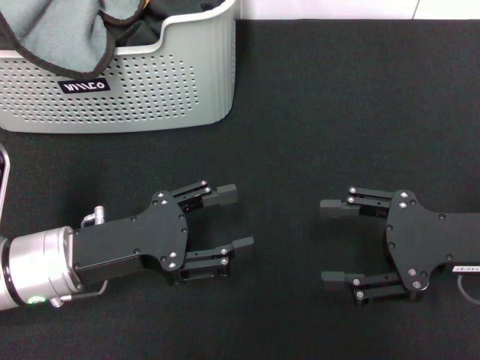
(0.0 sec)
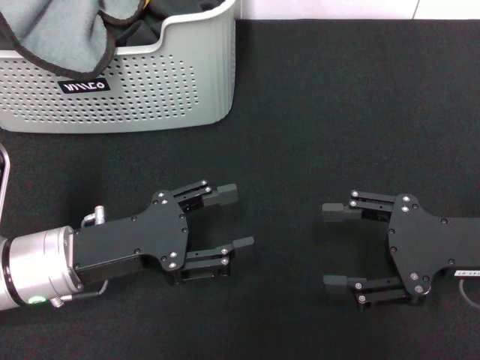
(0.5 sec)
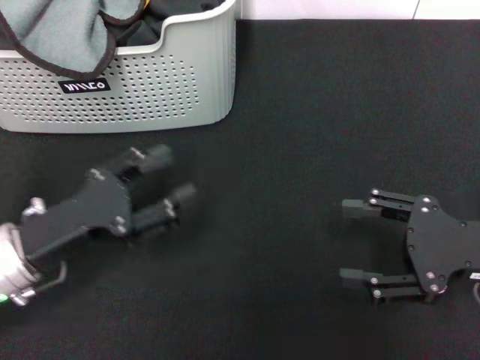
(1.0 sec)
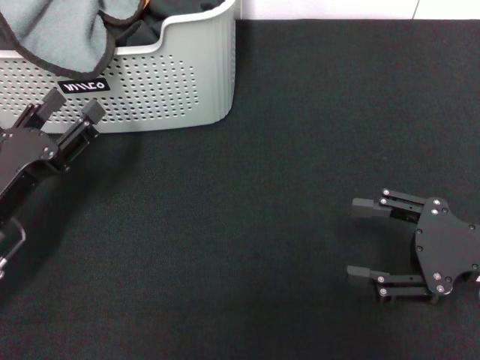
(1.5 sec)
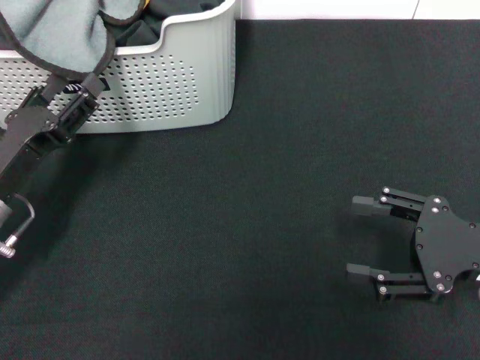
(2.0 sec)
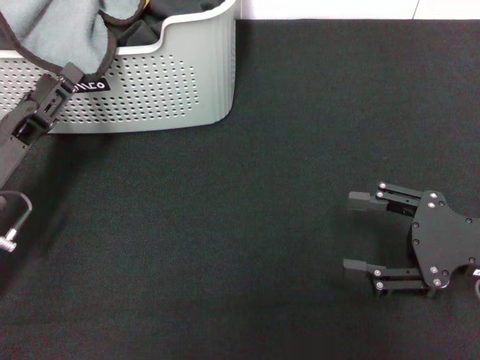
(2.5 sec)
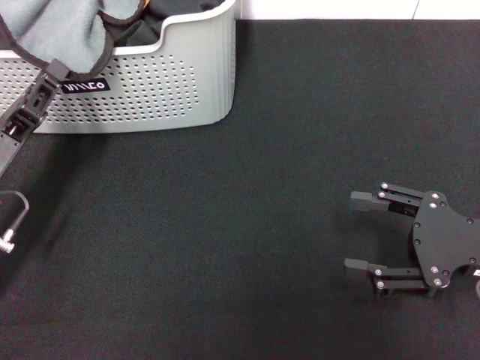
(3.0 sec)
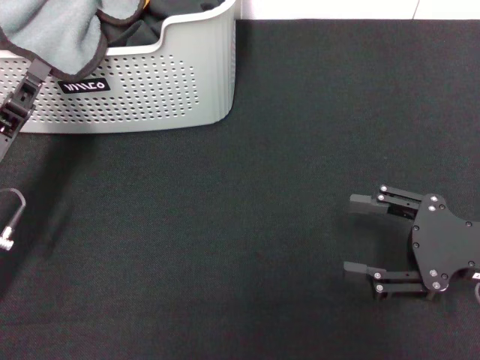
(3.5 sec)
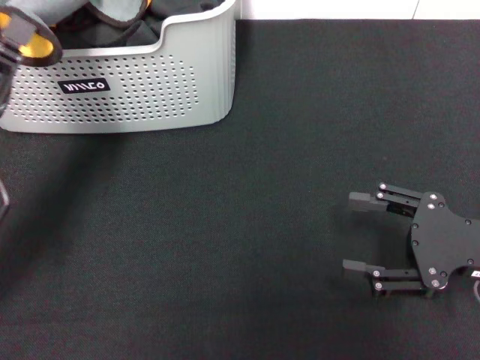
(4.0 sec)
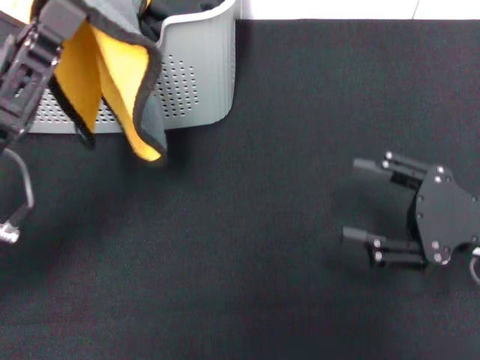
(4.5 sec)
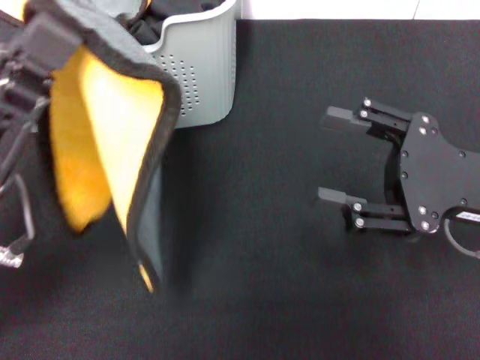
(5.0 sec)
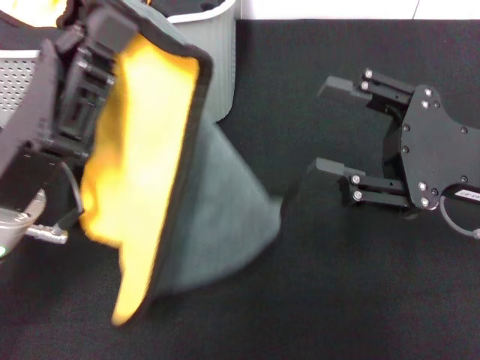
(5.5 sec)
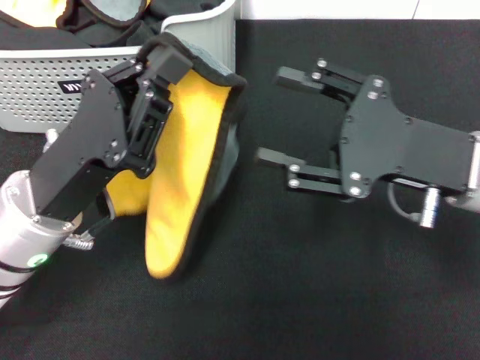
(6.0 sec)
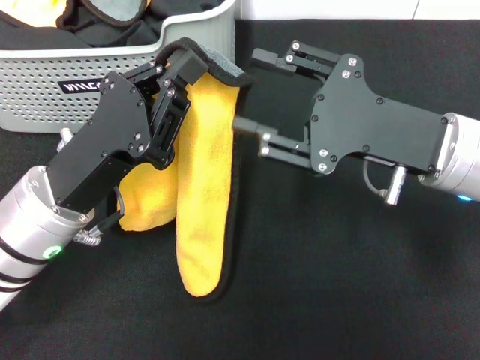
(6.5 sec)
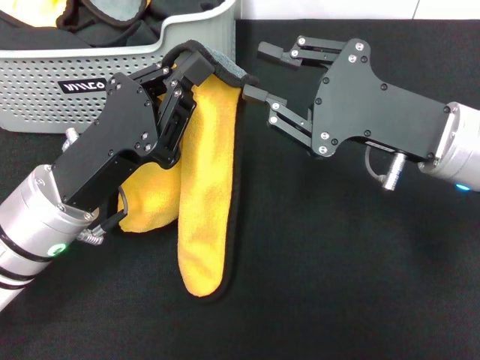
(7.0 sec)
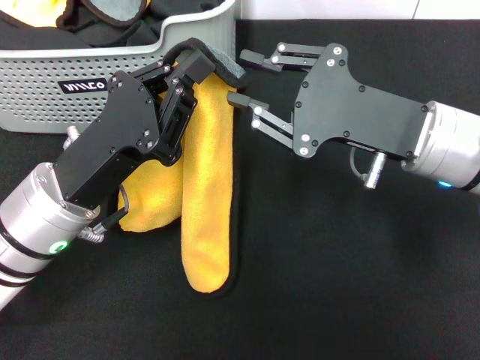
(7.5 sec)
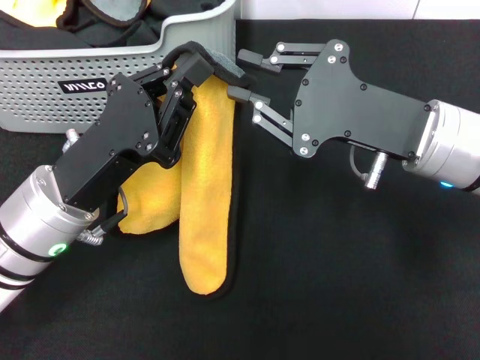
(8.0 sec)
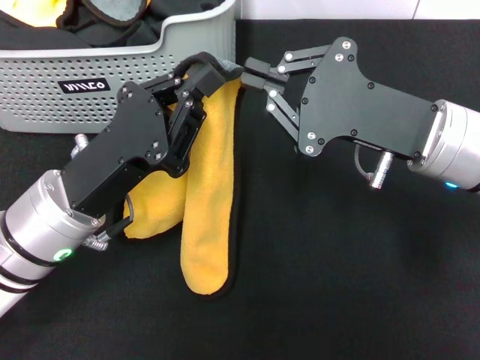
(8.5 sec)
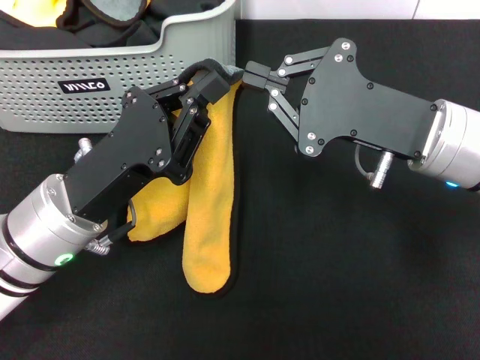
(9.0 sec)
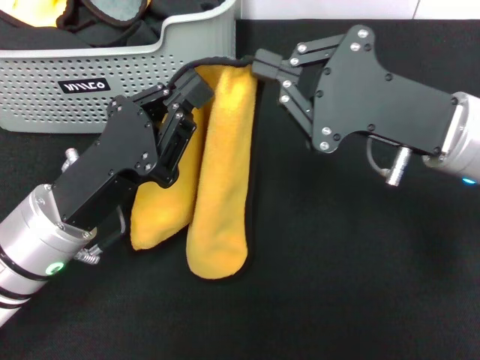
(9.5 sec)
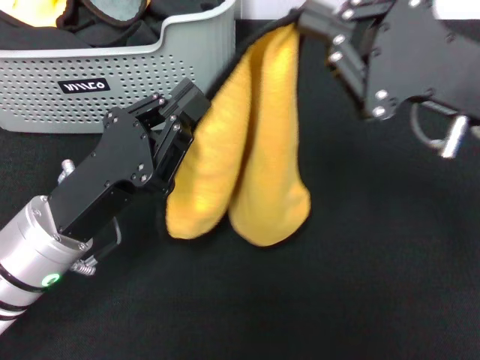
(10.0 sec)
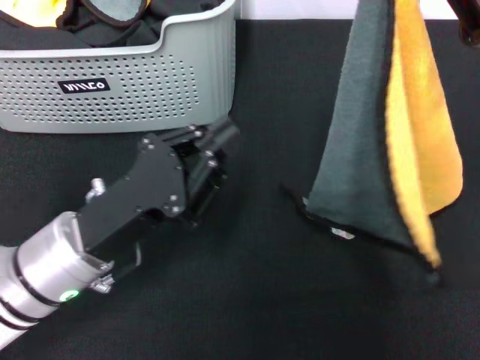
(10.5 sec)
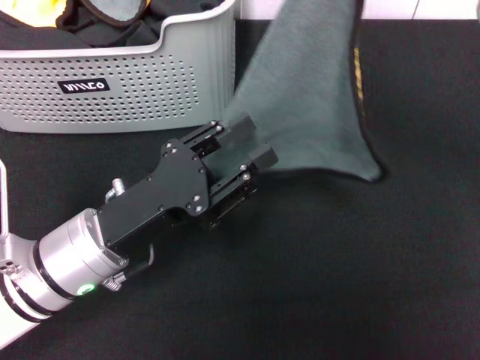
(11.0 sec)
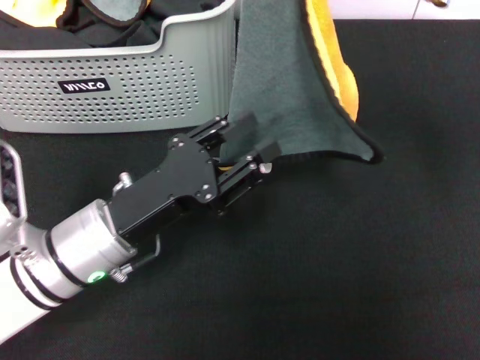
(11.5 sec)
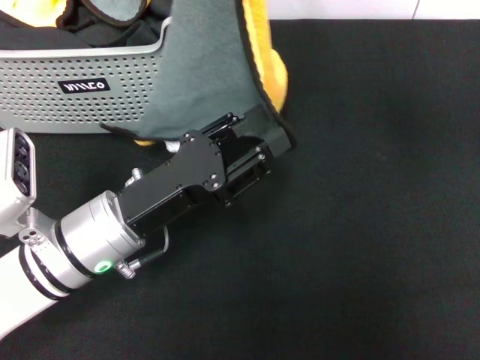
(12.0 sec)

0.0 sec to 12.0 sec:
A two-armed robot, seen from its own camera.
Task of the whole recording: pick up the towel from the storage box and lay it flat on the black tablecloth.
Step, 0.0 sec to 3.0 sec: Pick up a towel with the left gripper.
Step, 3.5 sec to 8.5 sec: Spread the towel flat with the left gripper.
0.0 sec to 2.0 sec: The left gripper shifts roughly 5 cm to the left.
2.0 sec to 4.0 sec: The left gripper closes its fingers.
4.0 sec to 6.0 sec: The left gripper goes roughly 10 cm to the right, while the right gripper shifts about 10 cm to the left.
6.0 sec to 8.0 sec: The right gripper closes.
8.0 sec to 10.0 sec: The right gripper ends up approximately 5 cm from where it was.
10.0 sec to 12.0 sec: The left gripper opens its fingers. Meanwhile the right gripper heads upward and forward, covering approximately 10 cm.

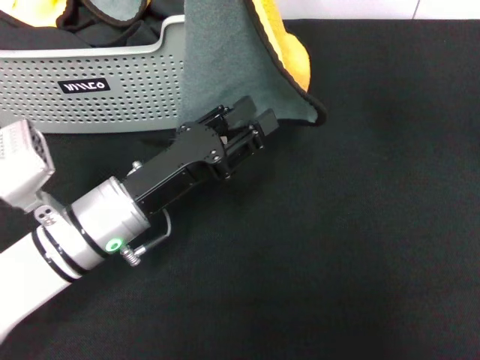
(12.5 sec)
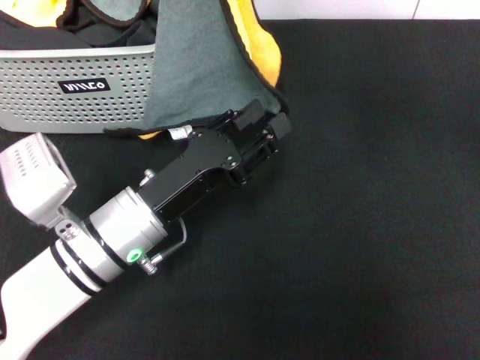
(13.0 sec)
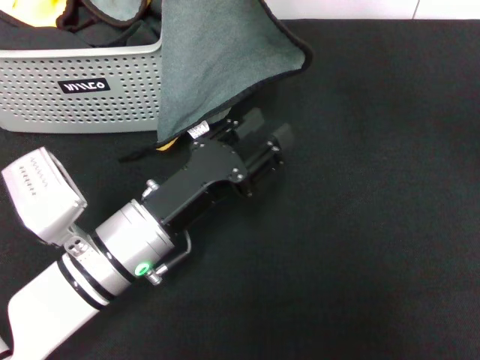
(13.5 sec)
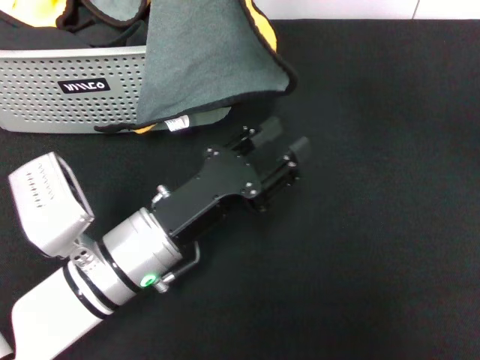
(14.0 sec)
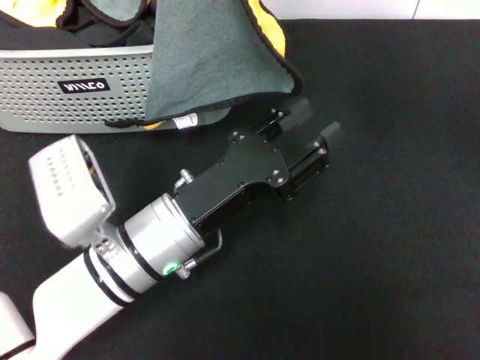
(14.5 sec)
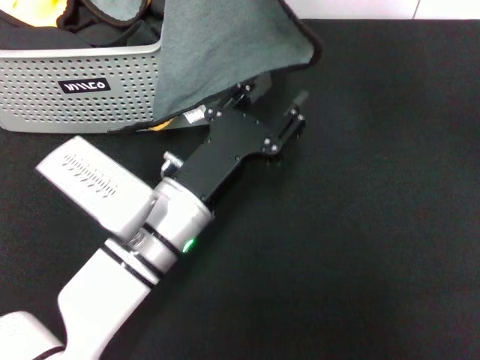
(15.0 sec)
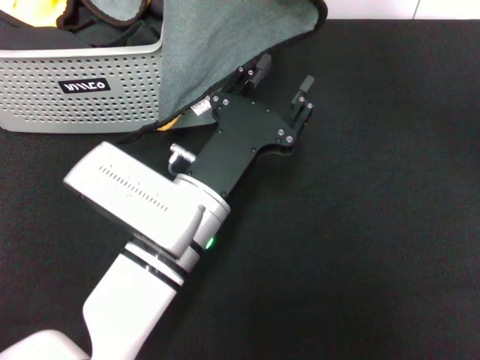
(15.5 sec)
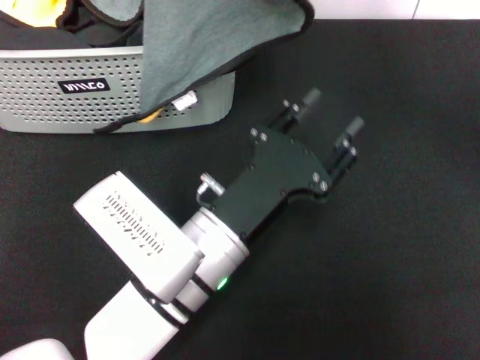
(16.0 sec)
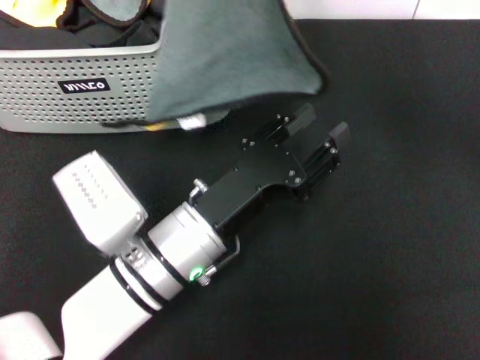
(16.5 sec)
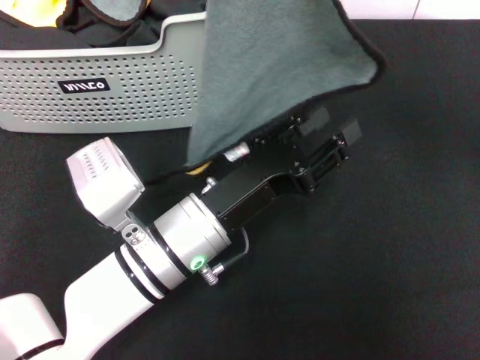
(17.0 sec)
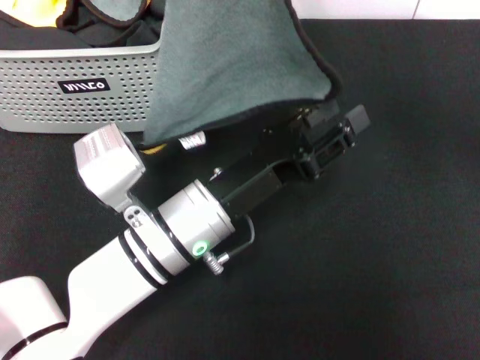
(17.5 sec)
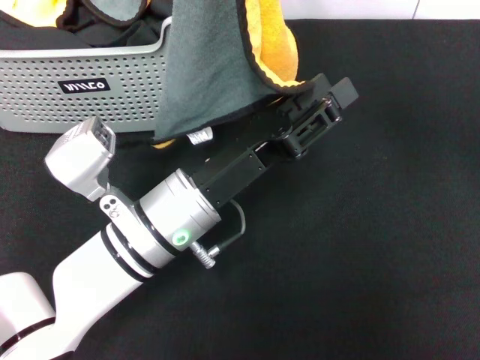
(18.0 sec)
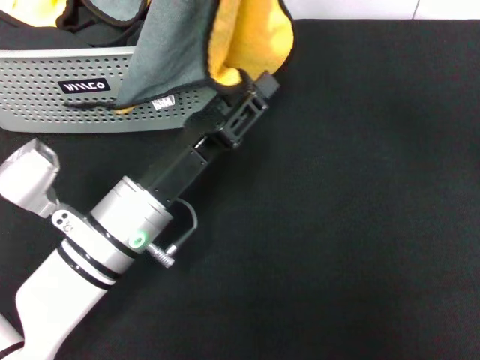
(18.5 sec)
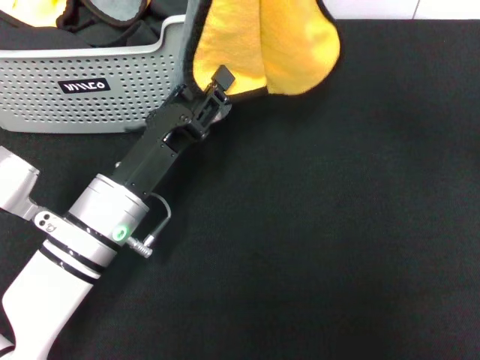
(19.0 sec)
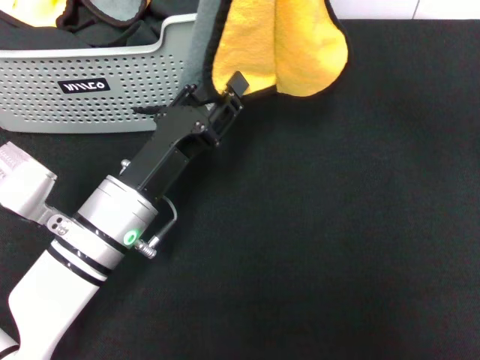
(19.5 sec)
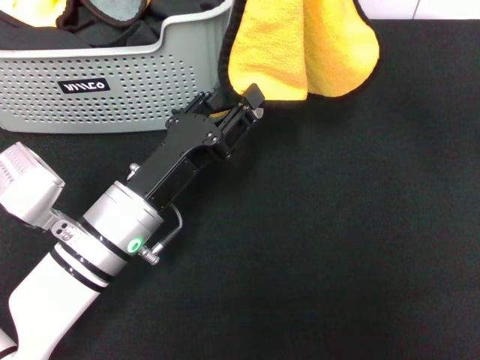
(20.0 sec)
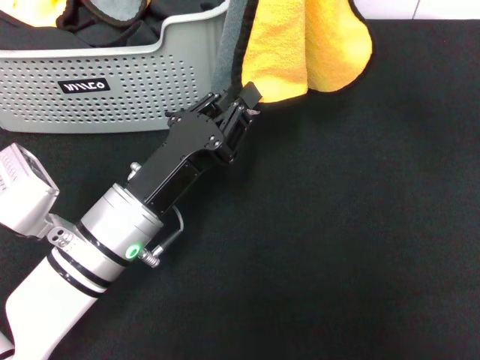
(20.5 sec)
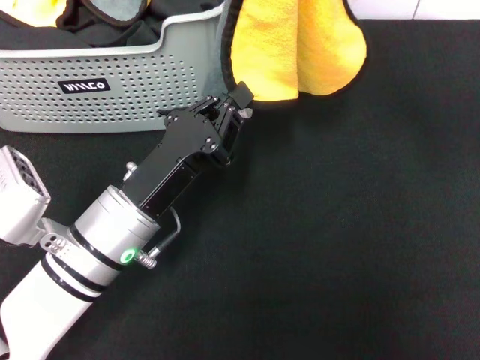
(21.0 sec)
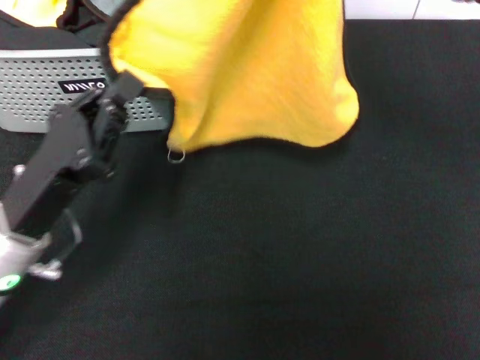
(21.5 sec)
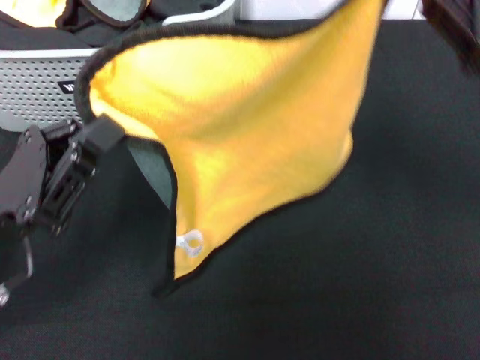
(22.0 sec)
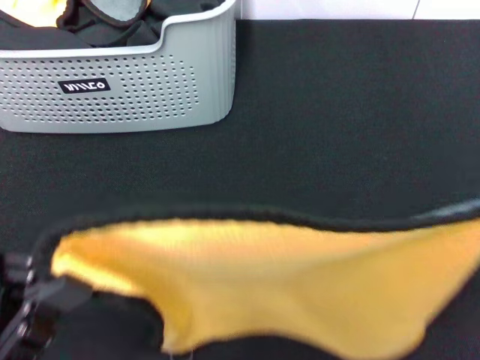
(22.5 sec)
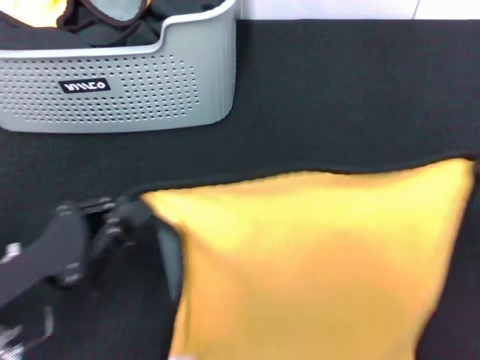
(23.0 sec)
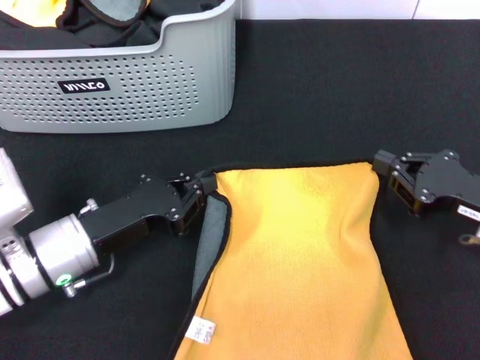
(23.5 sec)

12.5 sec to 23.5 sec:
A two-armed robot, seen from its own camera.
Task of the whole recording: pick up the towel from the storage box and lay it flat on the black tablecloth.
12.5 sec to 14.5 sec: The left gripper goes some 5 cm to the right.
16.0 sec to 18.0 sec: The right gripper shifts by roughly 5 cm.
18.0 sec to 20.0 sec: The left gripper ends up about 5 cm from where it was.
20.0 sec to 21.5 sec: The left gripper travels to the left by about 10 cm, and closes its fingers.
21.5 sec to 23.5 sec: The left gripper goes backward and returns, roughly 10 cm each way. Meanwhile the right gripper shifts about 20 cm downward and backward.

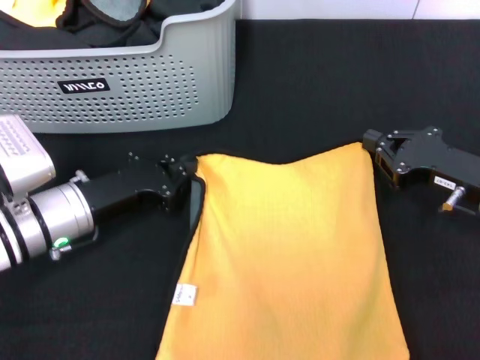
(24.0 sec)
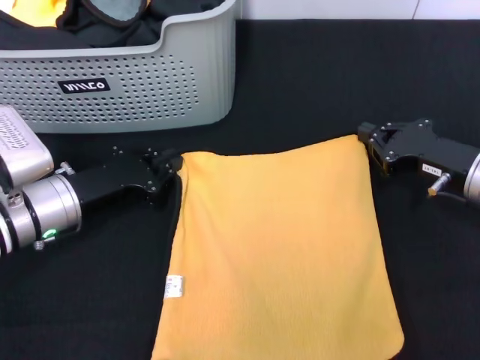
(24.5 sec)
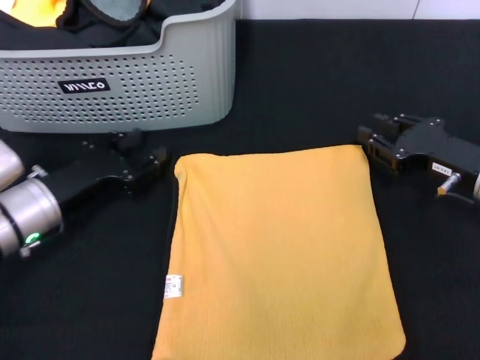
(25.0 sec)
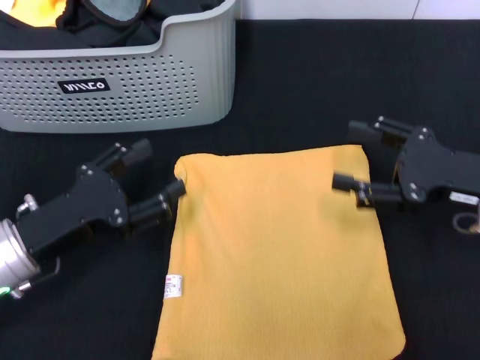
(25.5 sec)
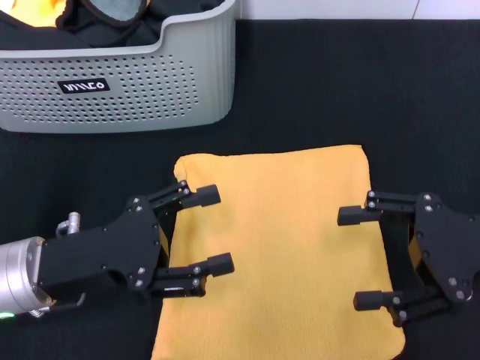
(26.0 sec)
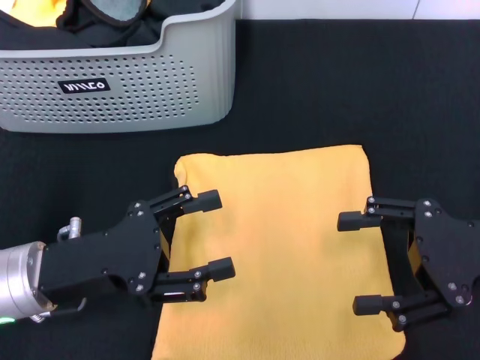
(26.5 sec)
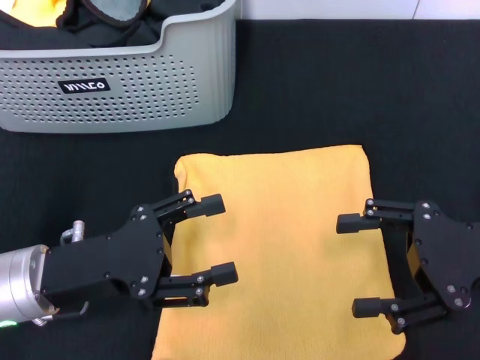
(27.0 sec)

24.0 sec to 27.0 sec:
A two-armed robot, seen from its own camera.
Task of the whole recording: pick up the towel from the storage box and lay it flat on the black tablecloth.
24.0 sec to 25.5 sec: The left gripper travels backward by approximately 5 cm, and opens. The right gripper opens up.
